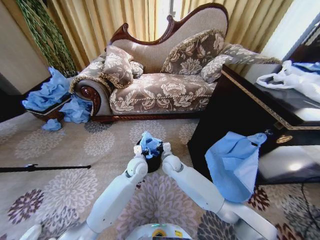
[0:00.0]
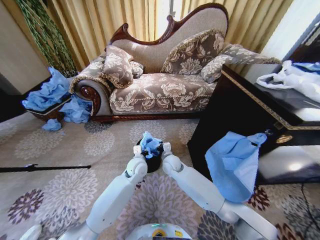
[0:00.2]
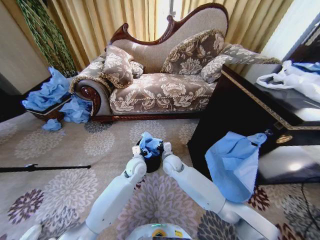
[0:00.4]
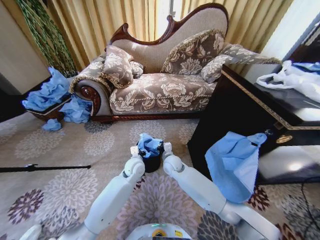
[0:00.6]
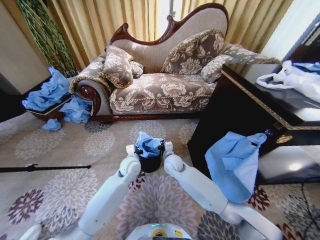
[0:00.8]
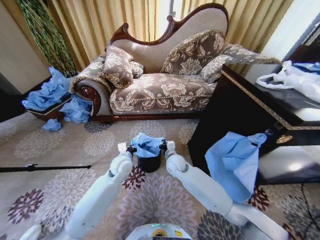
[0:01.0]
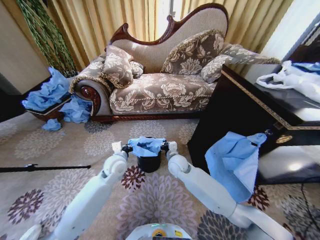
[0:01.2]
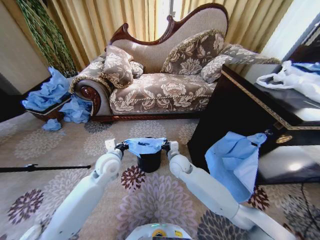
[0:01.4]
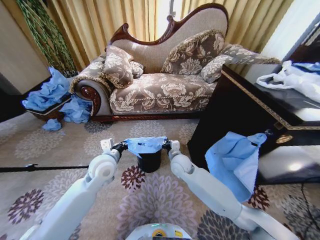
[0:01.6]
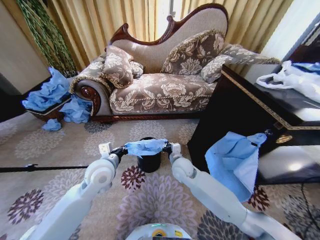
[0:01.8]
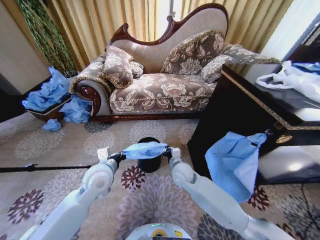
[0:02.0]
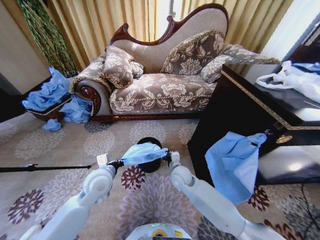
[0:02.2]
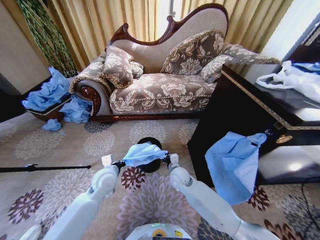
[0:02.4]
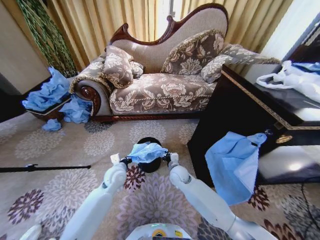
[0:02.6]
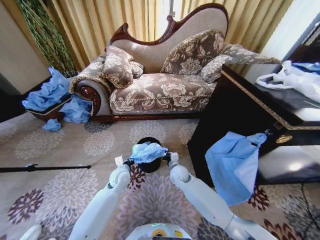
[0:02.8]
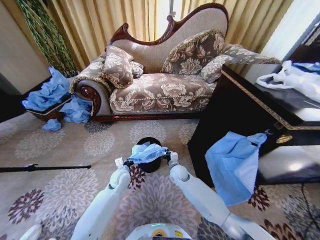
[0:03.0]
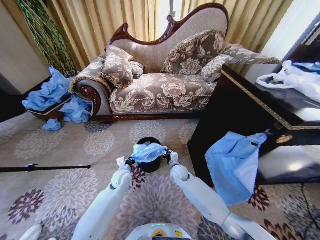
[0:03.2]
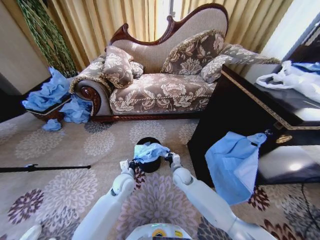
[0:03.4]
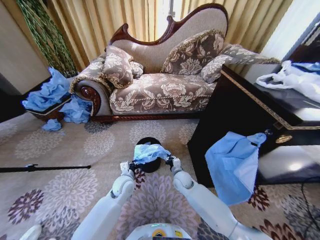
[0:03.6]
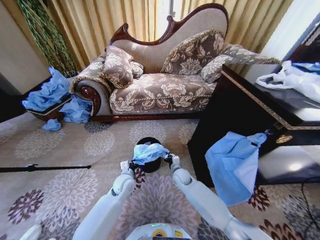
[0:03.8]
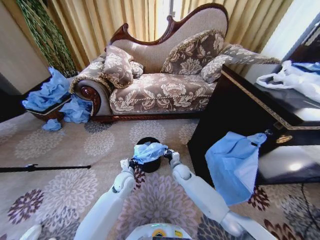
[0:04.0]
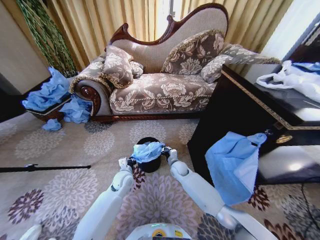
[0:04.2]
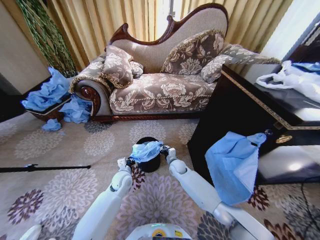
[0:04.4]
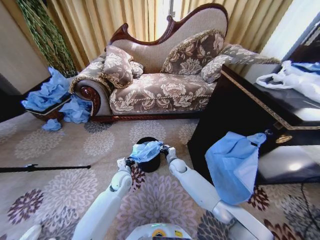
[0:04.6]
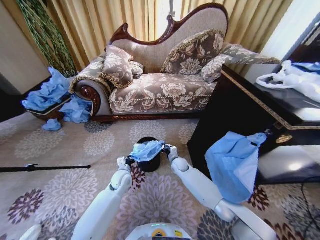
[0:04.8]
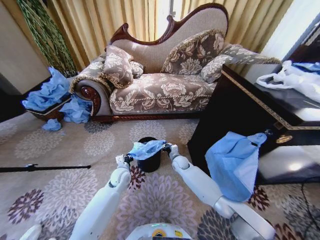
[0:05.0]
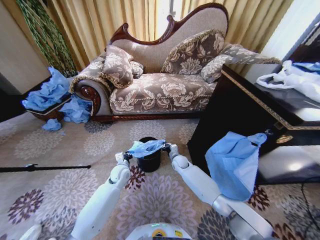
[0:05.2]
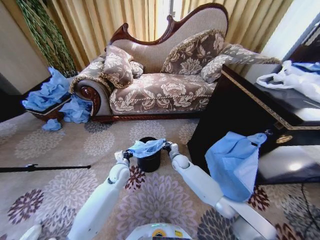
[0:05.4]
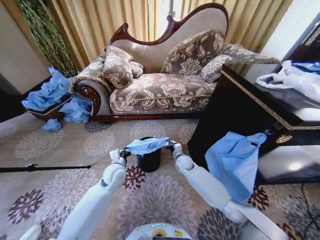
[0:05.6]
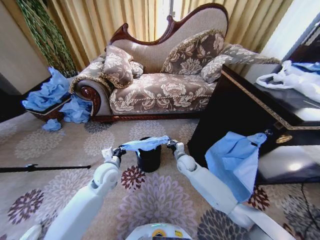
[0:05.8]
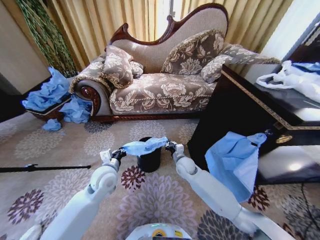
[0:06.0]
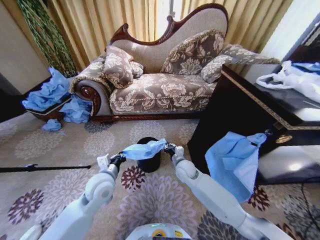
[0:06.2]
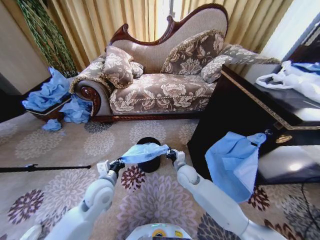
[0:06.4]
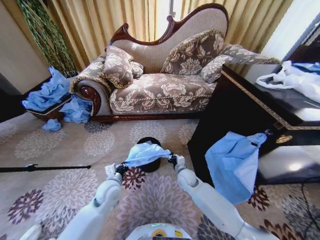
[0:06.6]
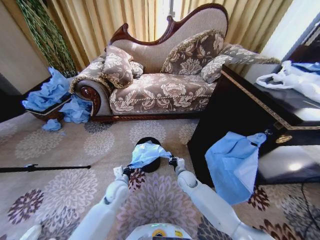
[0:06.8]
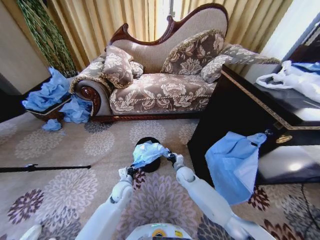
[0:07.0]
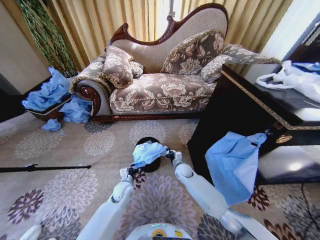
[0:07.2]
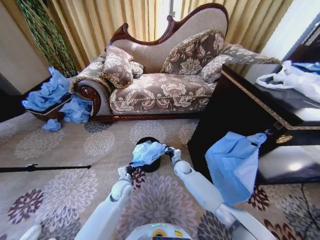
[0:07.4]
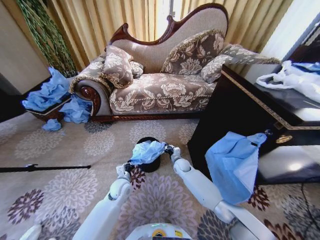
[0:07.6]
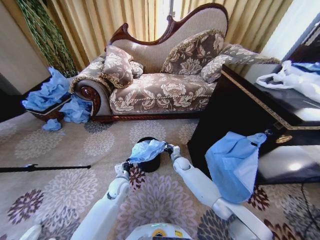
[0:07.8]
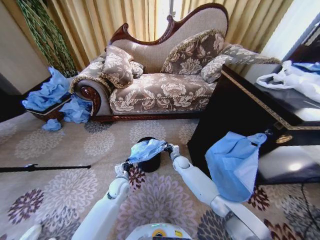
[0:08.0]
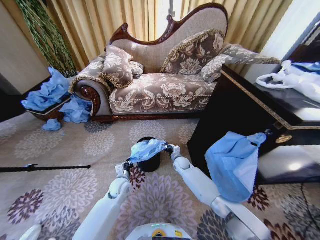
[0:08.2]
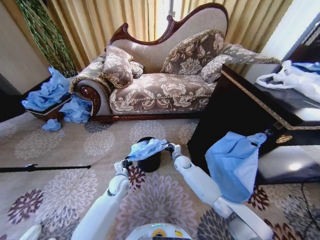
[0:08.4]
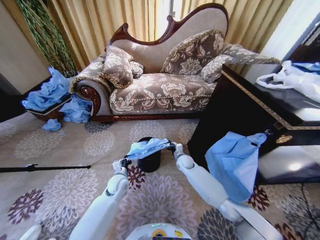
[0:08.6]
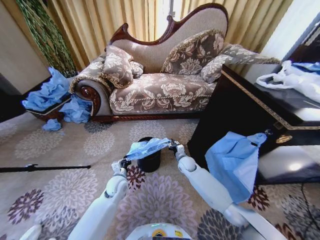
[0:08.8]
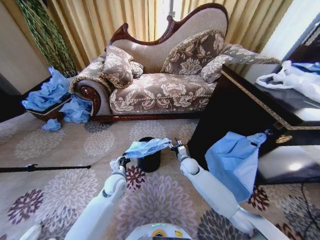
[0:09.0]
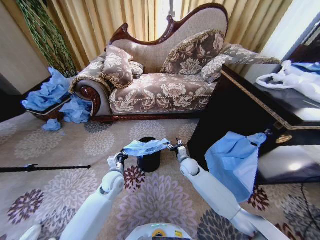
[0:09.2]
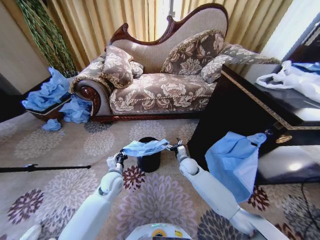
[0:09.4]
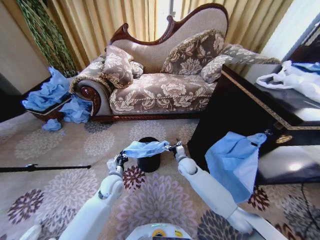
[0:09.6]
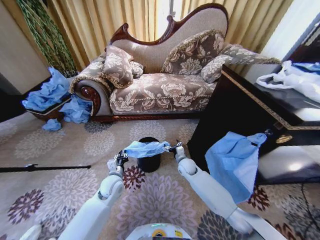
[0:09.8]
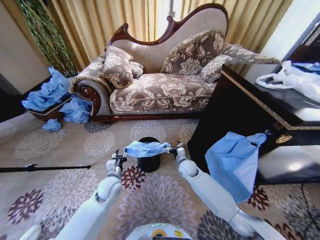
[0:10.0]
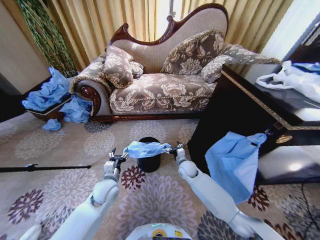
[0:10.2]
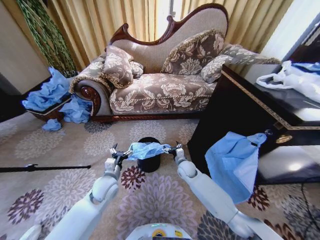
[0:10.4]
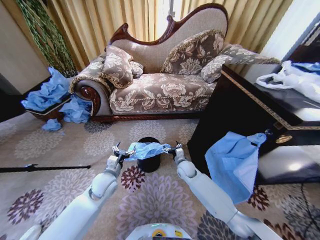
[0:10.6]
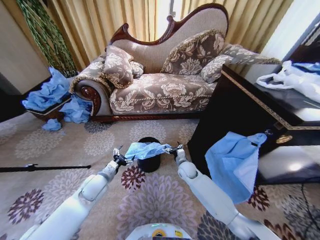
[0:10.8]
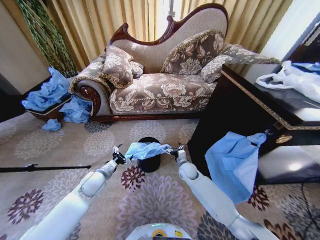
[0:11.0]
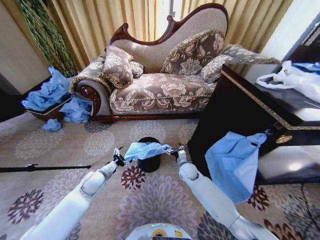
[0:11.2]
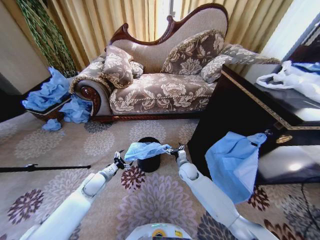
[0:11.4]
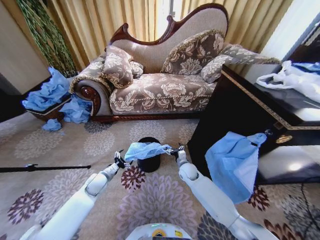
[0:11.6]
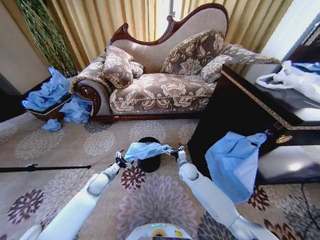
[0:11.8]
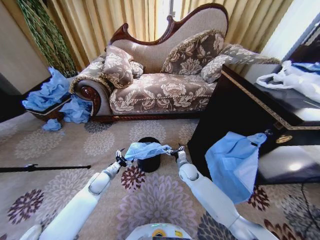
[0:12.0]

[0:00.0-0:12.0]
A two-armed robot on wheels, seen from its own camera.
Task of the whole recording: Place a garbage bag over the trash bin.
0:00.0 to 0:01.6: The right gripper changes place by approximately 5 cm. The left gripper is displaced to the left, upward and backward by approximately 15 cm, and closes.
0:01.6 to 0:03.0: The two grippers go about 15 cm downward.
0:03.0 to 0:04.4: The right gripper moves about 5 cm.
0:04.4 to 0:06.0: The left gripper goes some 10 cm upward. Meanwhile the right gripper travels upward by about 10 cm.
0:06.0 to 0:07.6: The right gripper goes about 10 cm downward and forward, while the left gripper is displaced downward by roughly 15 cm.
0:07.6 to 0:09.0: The right gripper changes place by some 5 cm, and opens.
0:09.0 to 0:10.4: The right gripper opens up. Meanwhile the left gripper moves upward, roughly 5 cm, and opens up.
0:10.4 to 0:12.0: The left gripper is displaced to the left, downward and forward by some 10 cm.

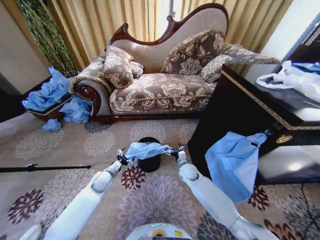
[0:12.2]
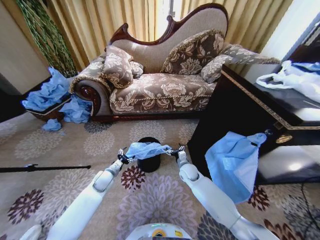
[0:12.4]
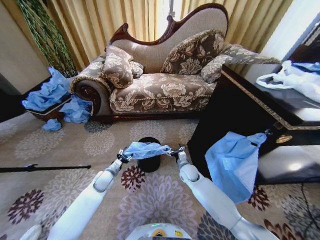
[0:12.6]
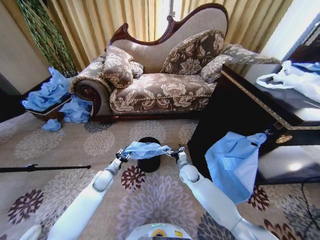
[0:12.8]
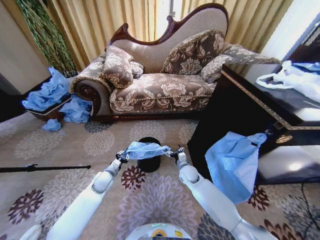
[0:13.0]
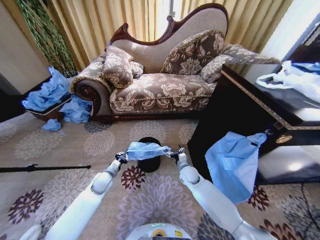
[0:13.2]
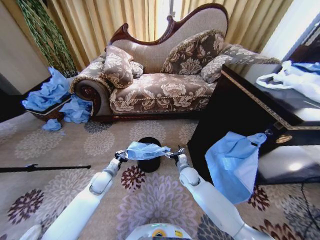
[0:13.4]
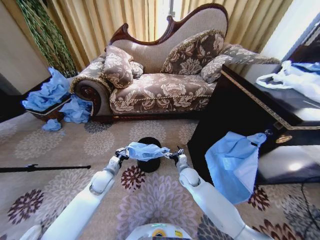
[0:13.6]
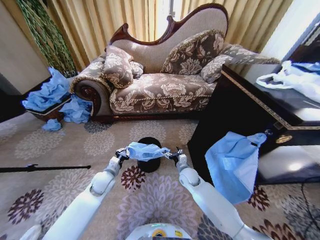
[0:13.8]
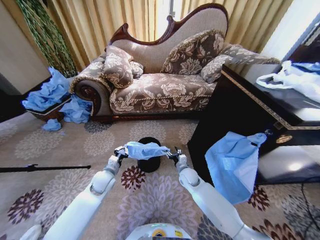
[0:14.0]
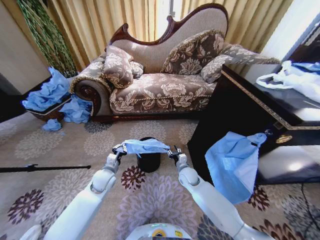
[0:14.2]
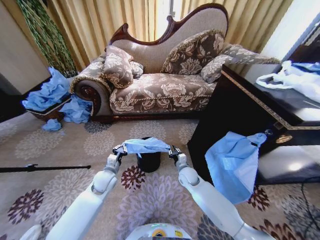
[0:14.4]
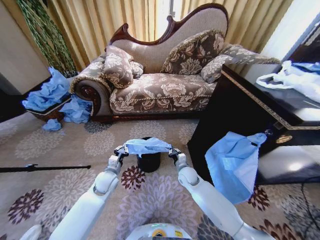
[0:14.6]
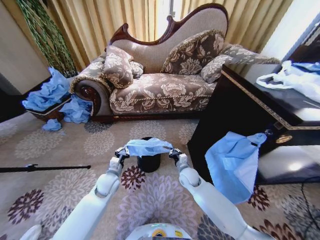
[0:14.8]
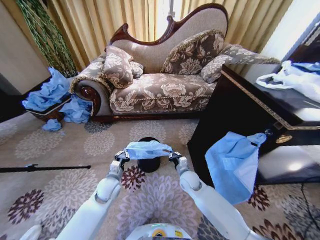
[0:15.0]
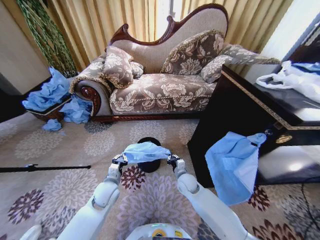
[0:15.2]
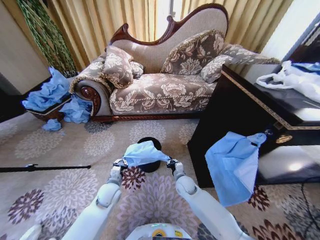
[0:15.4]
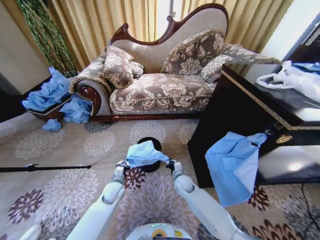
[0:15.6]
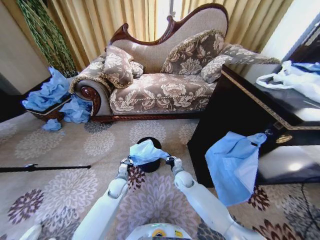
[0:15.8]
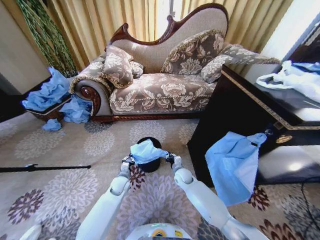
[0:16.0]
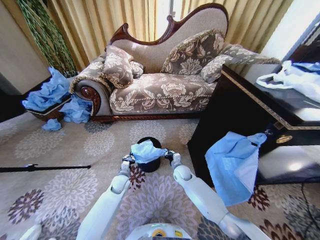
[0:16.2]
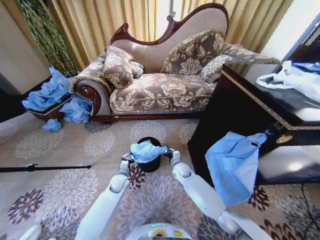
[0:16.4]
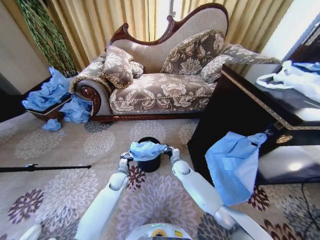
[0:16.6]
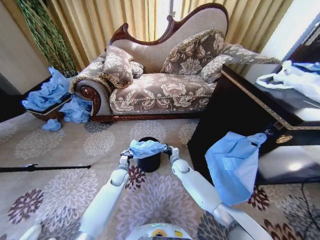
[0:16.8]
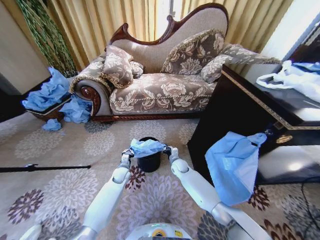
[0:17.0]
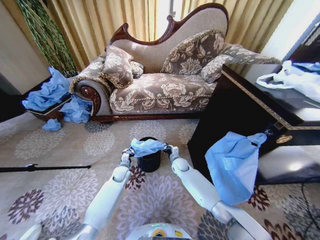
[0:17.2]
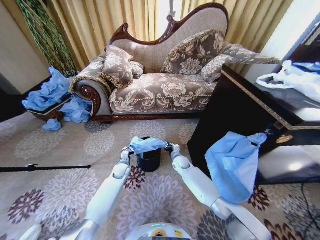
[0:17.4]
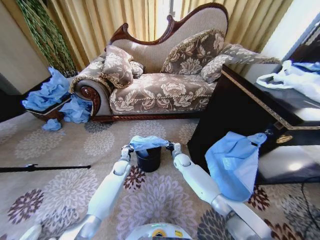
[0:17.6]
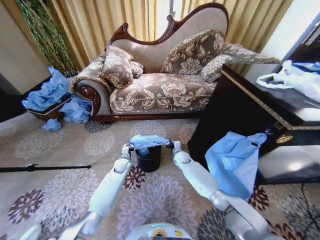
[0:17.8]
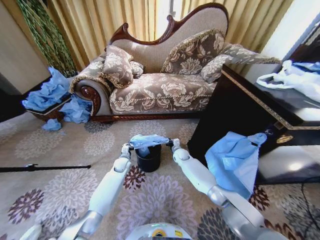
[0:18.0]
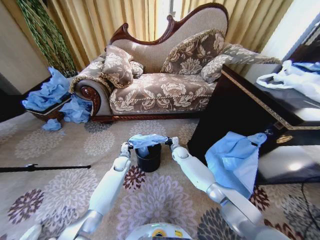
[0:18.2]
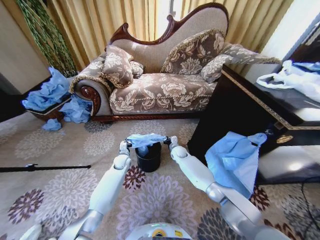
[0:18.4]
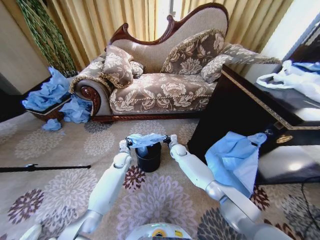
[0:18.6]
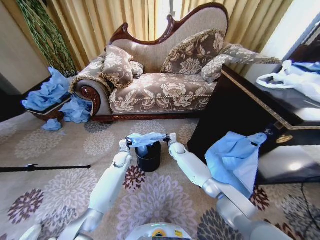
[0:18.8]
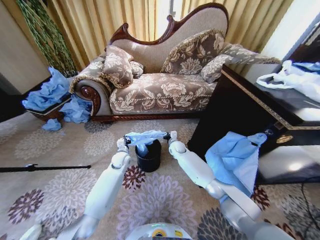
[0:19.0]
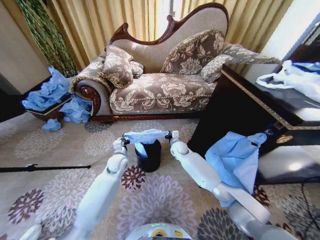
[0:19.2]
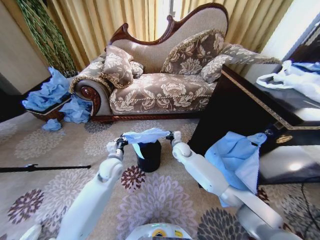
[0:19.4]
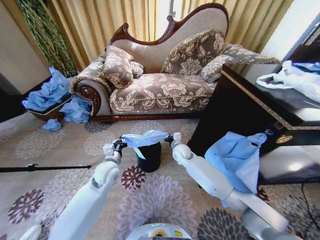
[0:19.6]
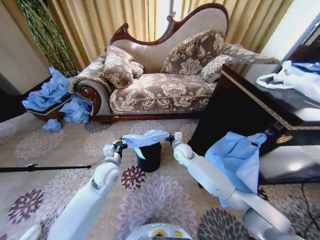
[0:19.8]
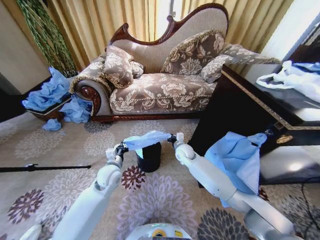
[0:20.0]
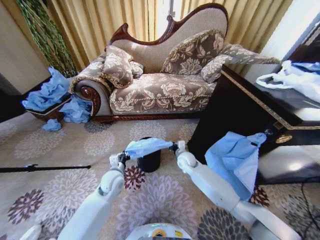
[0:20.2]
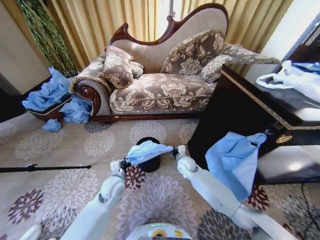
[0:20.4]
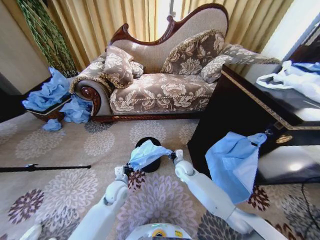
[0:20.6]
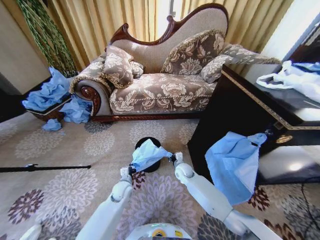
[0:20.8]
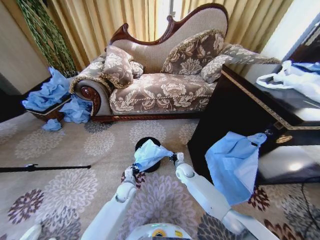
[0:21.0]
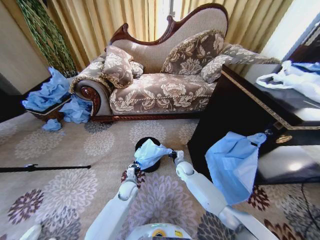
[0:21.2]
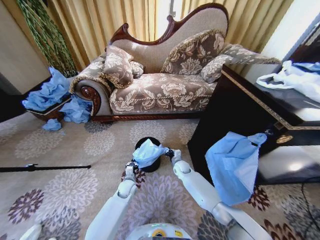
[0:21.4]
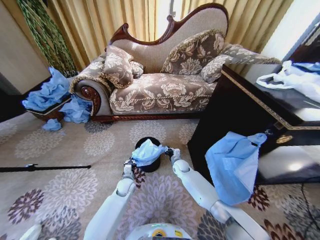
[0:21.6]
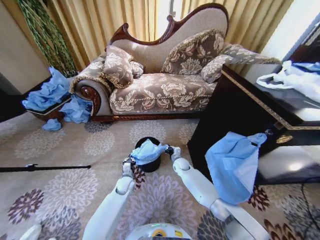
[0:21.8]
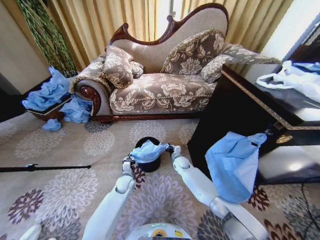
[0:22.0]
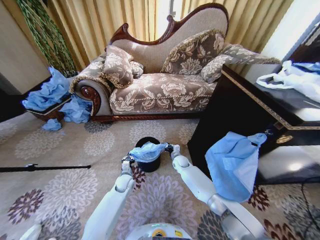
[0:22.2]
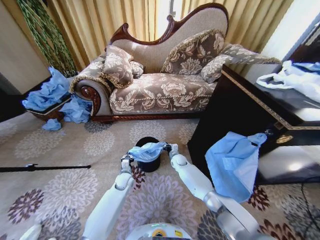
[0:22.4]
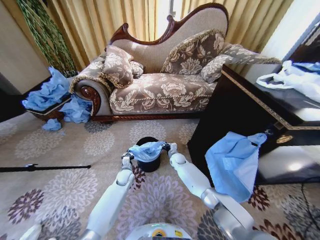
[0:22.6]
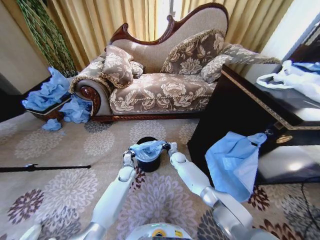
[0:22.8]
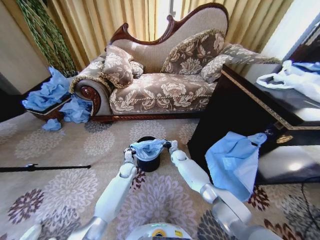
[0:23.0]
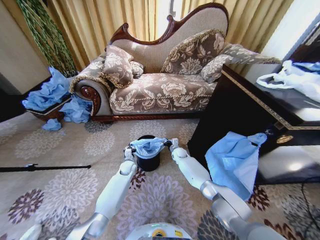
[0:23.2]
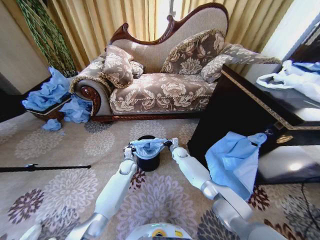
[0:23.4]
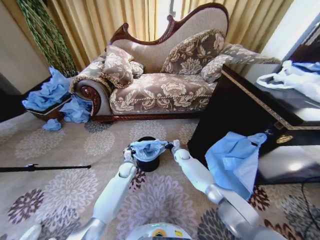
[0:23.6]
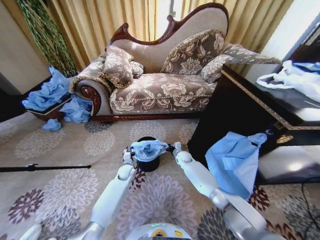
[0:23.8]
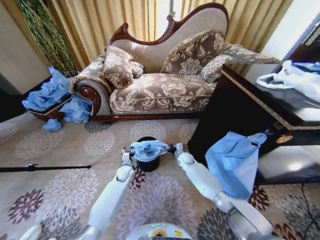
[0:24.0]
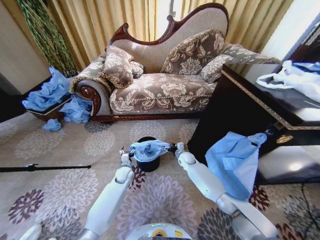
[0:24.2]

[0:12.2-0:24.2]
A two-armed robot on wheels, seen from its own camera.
Task of the whole recording: Place a garbage bag over the trash bin.
0:12.2 to 0:13.8: The left gripper moves approximately 5 cm, and closes up.
0:13.8 to 0:15.2: The right gripper closes its fingers, while the left gripper changes place by about 5 cm.
0:15.2 to 0:16.6: The right gripper goes about 10 cm forward. The left gripper goes approximately 15 cm downward and forward.
0:16.6 to 0:18.2: The two grippers go some 10 cm forward.
0:18.2 to 0:19.8: The left gripper moves upward and backward, about 20 cm. The right gripper shifts approximately 10 cm upward and backward.
0:19.8 to 0:21.2: The two grippers go roughly 15 cm downward.
0:21.2 to 0:22.6: Both grippers move forward, approximately 5 cm.
0:22.6 to 0:24.2: The left gripper opens up, while the right gripper changes place by roughly 5 cm, and opens its fingers.
